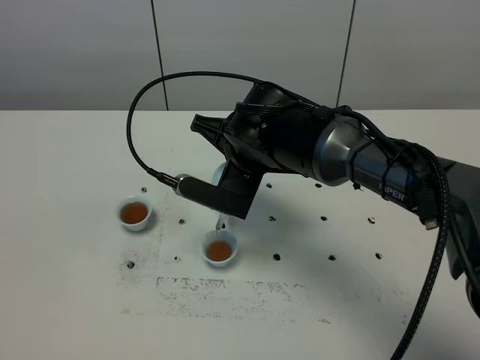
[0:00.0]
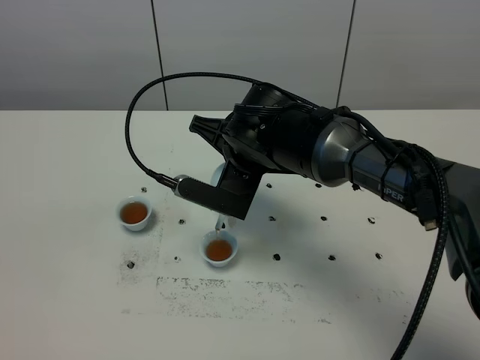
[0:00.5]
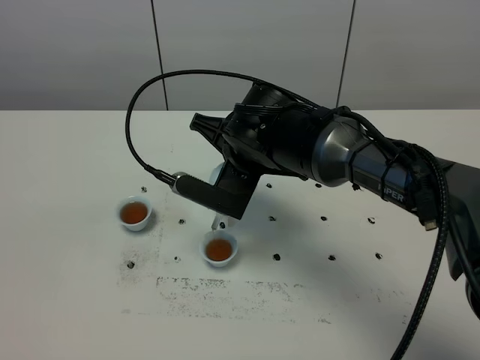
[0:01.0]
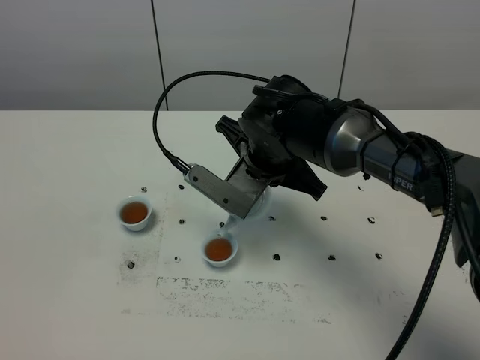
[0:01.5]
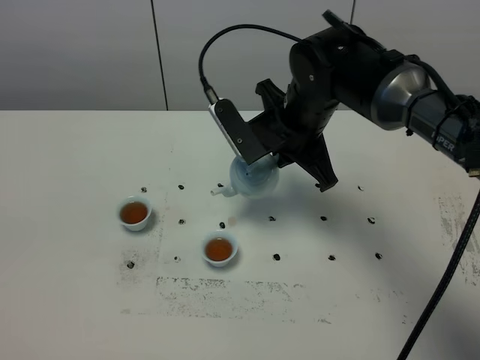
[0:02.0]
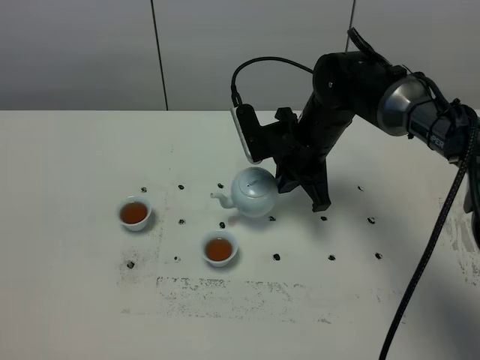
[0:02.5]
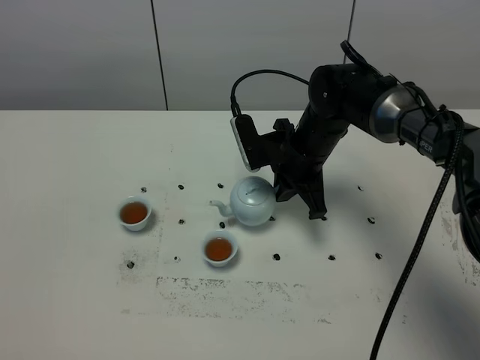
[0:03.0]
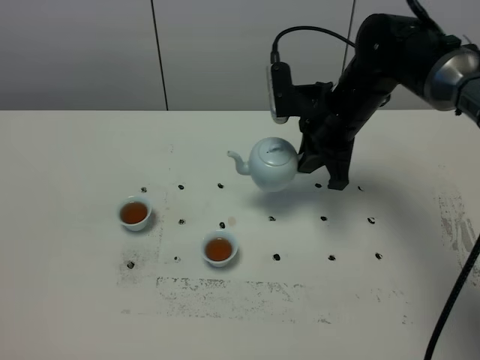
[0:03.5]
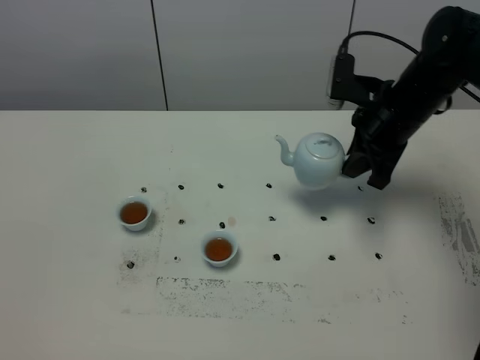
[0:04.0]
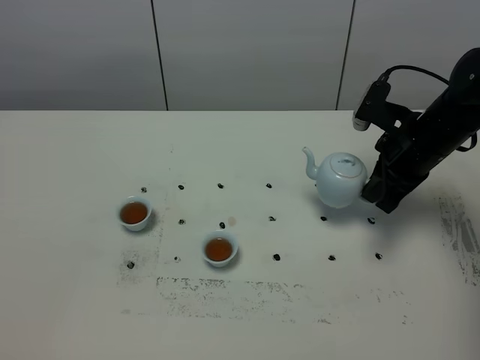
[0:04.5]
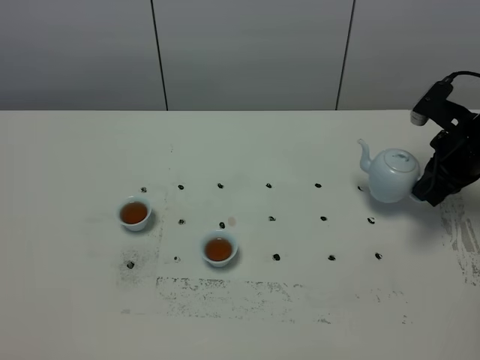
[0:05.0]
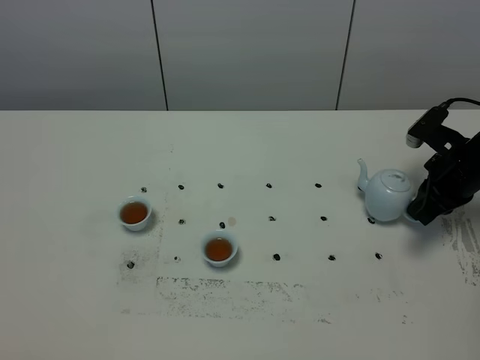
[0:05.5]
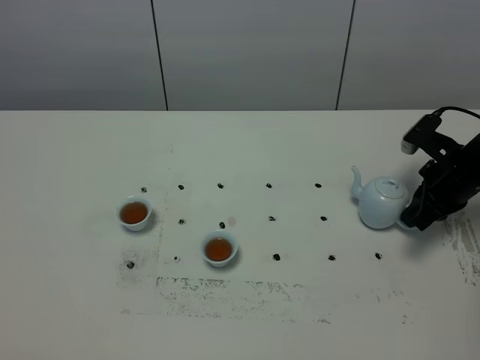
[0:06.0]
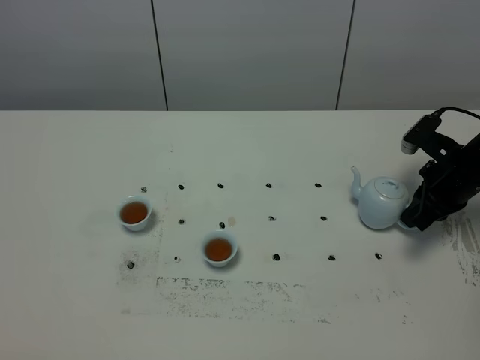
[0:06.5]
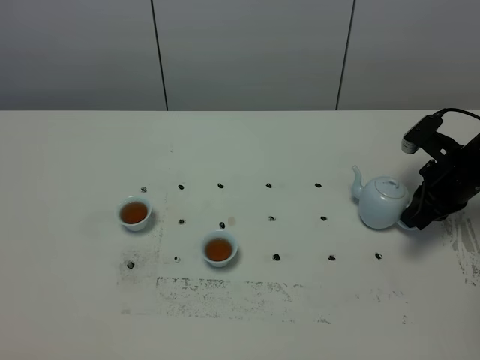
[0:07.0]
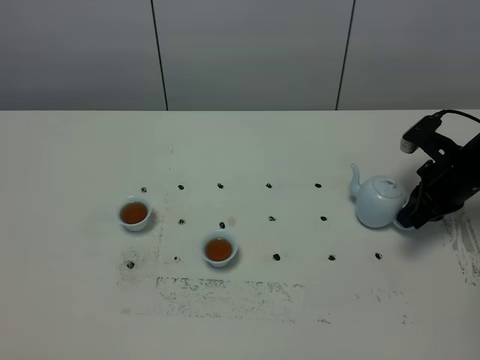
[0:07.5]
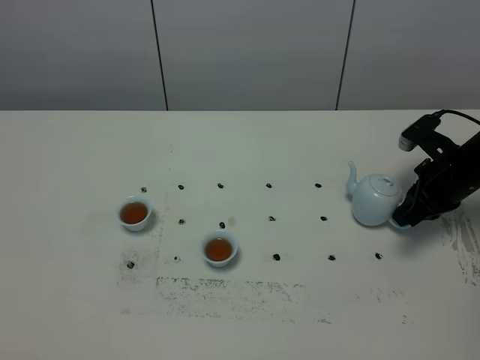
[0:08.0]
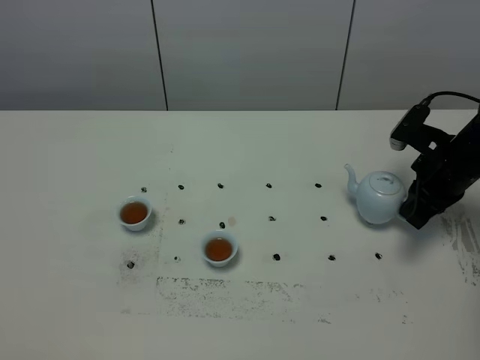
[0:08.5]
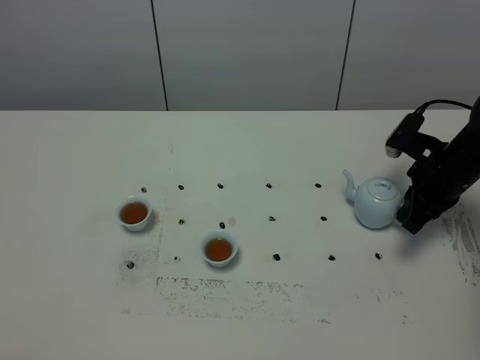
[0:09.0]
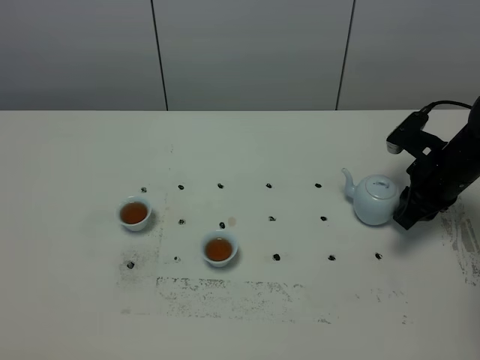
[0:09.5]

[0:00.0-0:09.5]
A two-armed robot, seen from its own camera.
Task of the whole recording: grasp the blue porcelain teapot and pour the tea into the two blue porcelain teacups one by one, put the blue porcelain teapot back in its original place.
0:00.0 to 0:02.0: The right gripper is displaced to the right by approximately 5 cm.
0:02.0 to 0:04.0: The right gripper shifts about 10 cm to the right.
0:04.0 to 0:05.5: The right gripper heads to the right and downward, covering about 15 cm.
0:05.5 to 0:07.5: The grippers move only a little.
0:07.5 to 0:09.5: The right gripper opens.

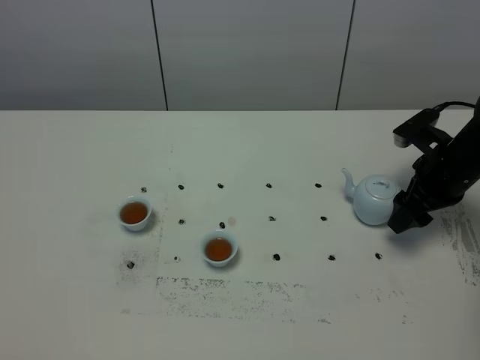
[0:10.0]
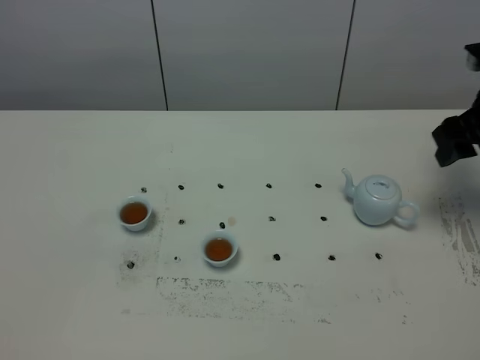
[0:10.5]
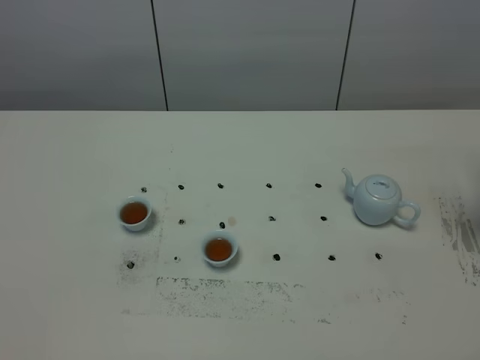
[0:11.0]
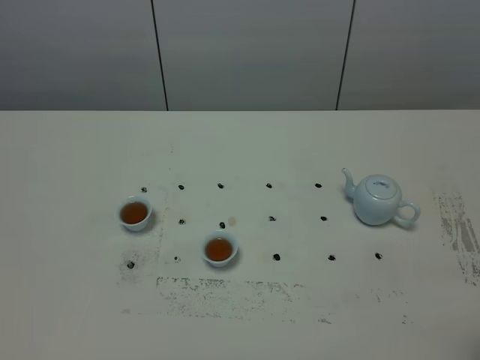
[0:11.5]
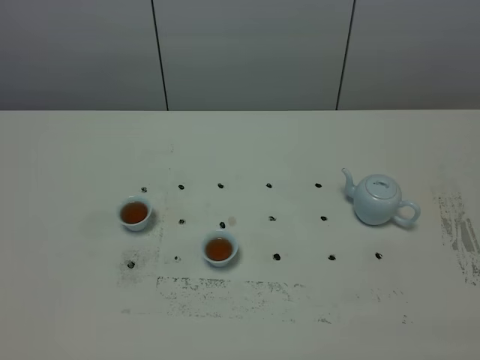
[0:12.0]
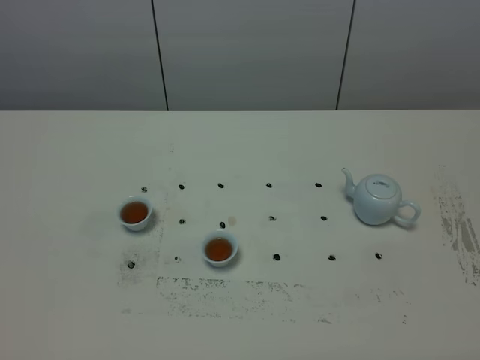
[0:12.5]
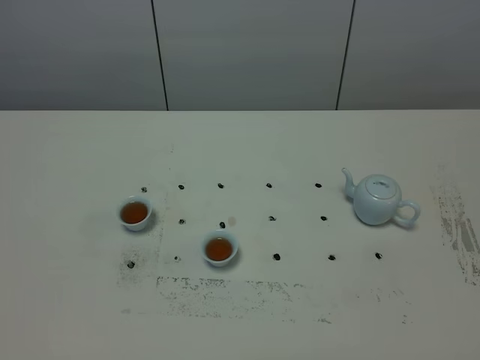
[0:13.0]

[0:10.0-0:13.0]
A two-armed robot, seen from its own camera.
Task of the whole recording: grasp the blue porcelain teapot and pour the tea into the two blue porcelain teacups one by one, put the blue porcelain teapot back in its original place.
0:10.0 to 0:11.5: The right gripper goes approximately 25 cm backward and upward.
